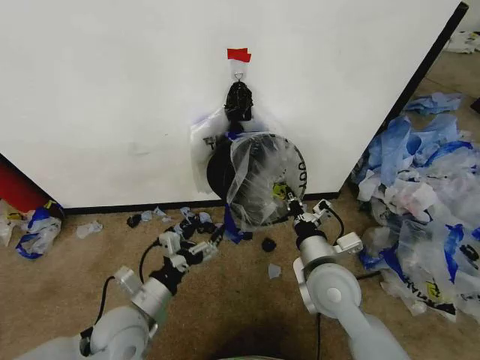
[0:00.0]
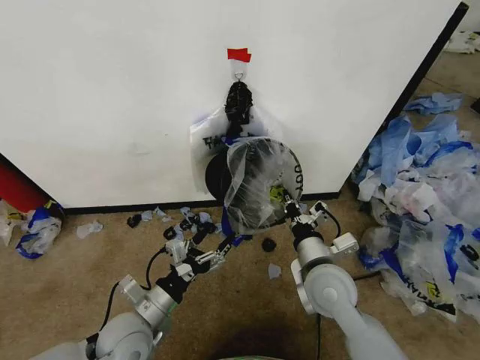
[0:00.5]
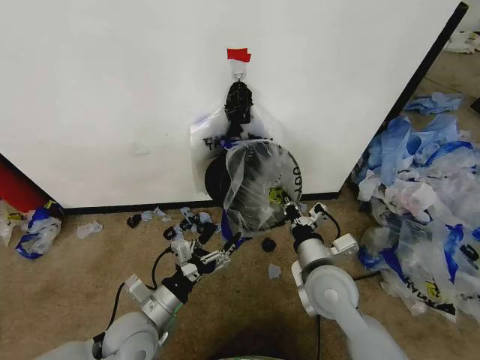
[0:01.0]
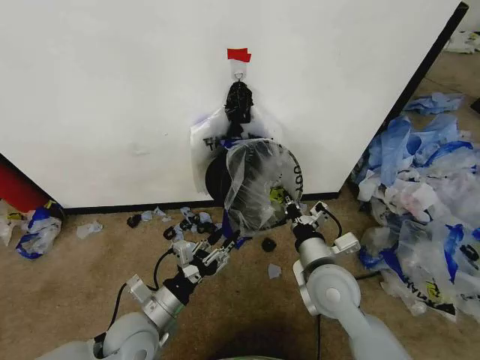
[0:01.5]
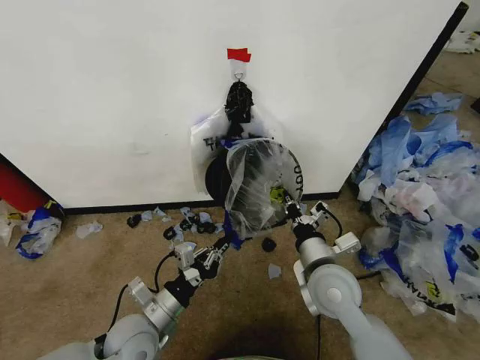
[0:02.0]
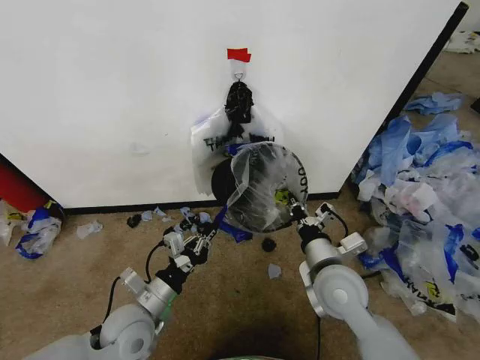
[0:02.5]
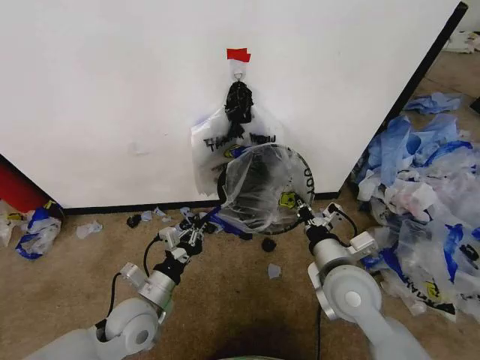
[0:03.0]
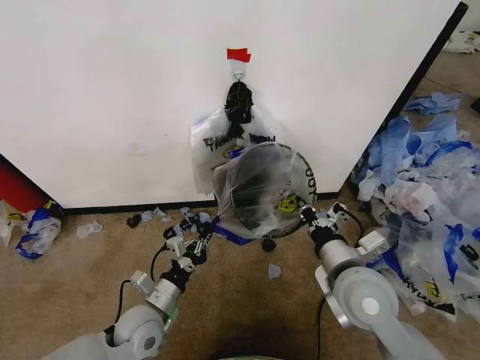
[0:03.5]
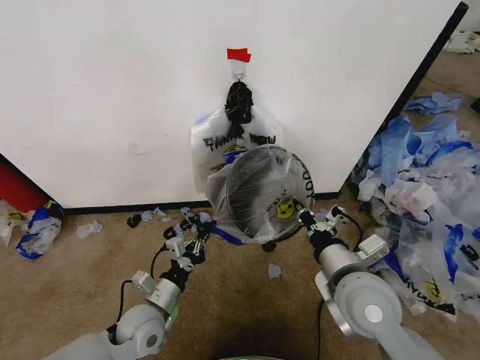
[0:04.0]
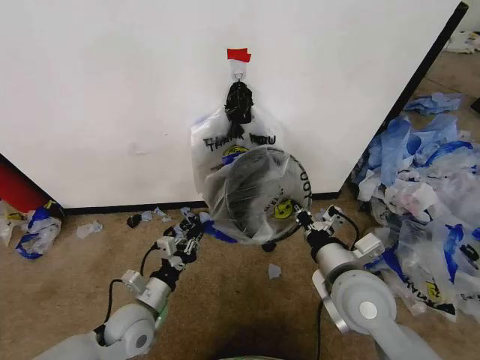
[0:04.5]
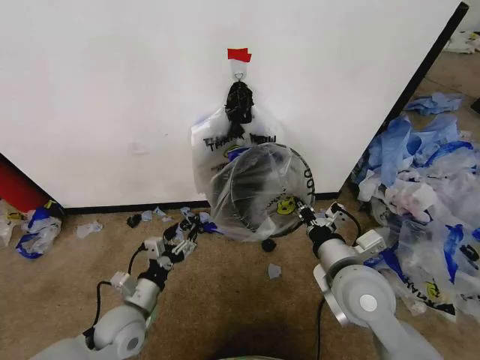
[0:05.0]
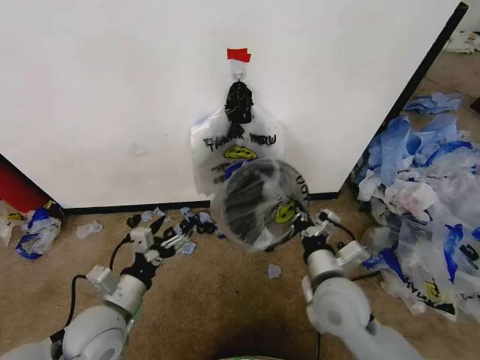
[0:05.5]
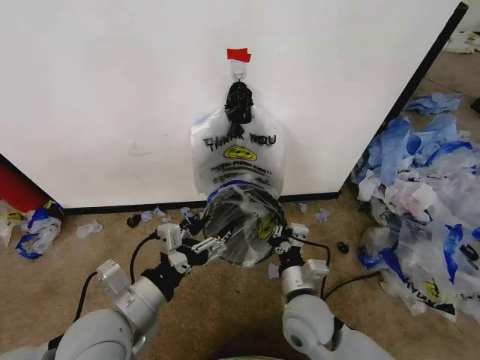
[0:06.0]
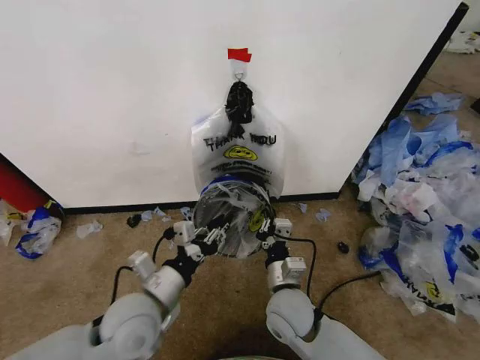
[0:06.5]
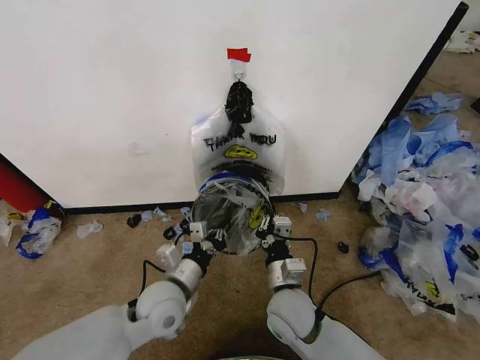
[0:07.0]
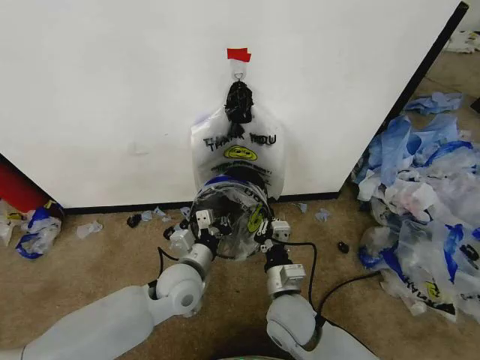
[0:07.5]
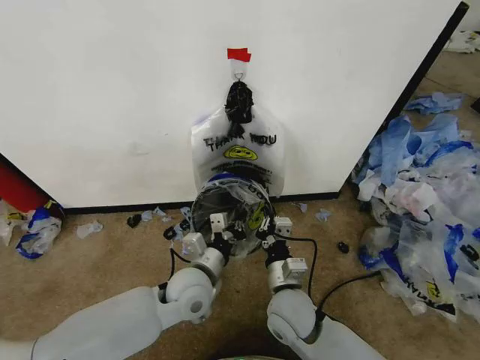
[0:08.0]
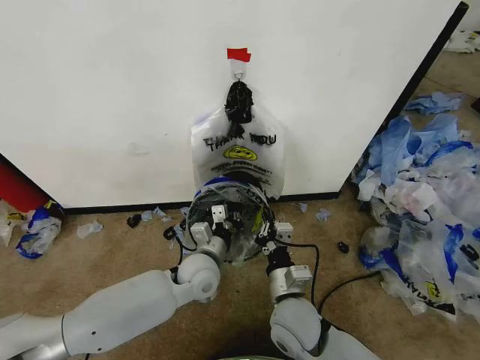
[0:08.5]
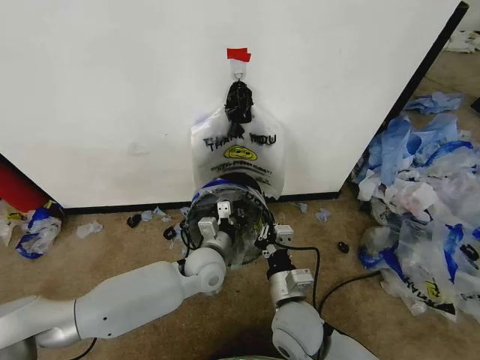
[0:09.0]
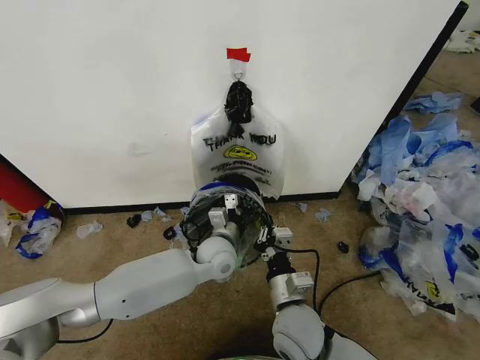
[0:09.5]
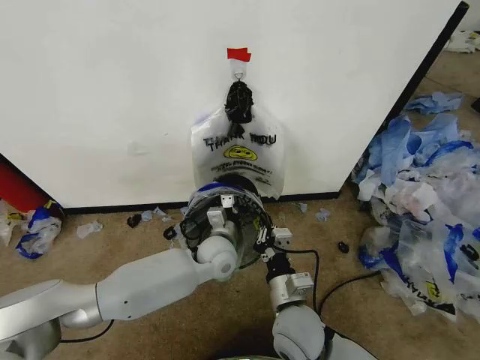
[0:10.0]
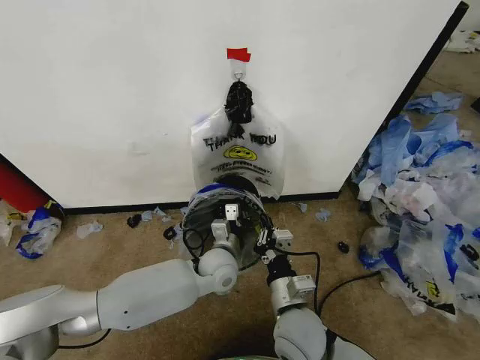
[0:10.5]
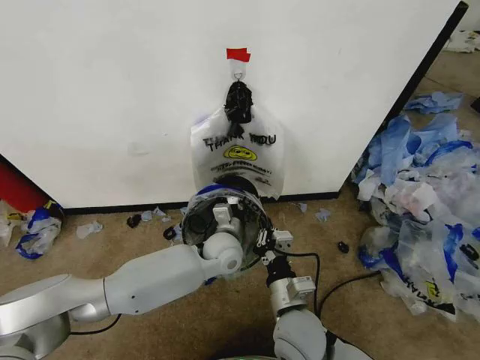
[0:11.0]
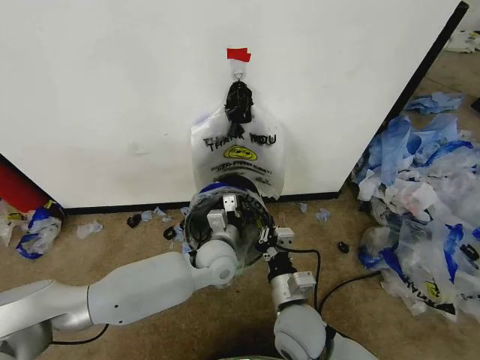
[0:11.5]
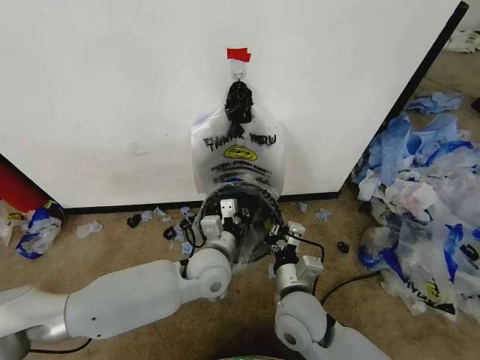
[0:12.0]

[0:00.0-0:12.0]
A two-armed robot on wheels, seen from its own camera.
Task of the whole recording: Pick up the garbage bag from the wall and place it over the trash bin.
0:00.0 to 0:02.0: The left gripper closes up.
0:02.0 to 0:04.0: The left gripper ends up roughly 5 cm from where it was. The right gripper ends up some 5 cm from where it was.
0:04.0 to 0:06.0: The left gripper is displaced upward and backward by roughly 20 cm, and opens up. Meanwhile the right gripper travels downward and to the left by some 15 cm.
0:06.0 to 0:08.0: The left gripper is displaced forward, to the right and downward by approximately 20 cm, and closes up.
0:08.0 to 0:10.0: The left gripper travels forward by some 10 cm.
0:10.0 to 0:12.0: The left gripper goes about 5 cm backward.

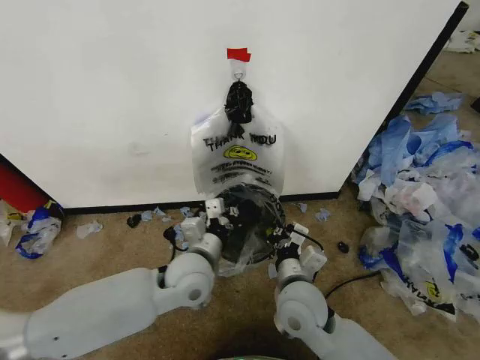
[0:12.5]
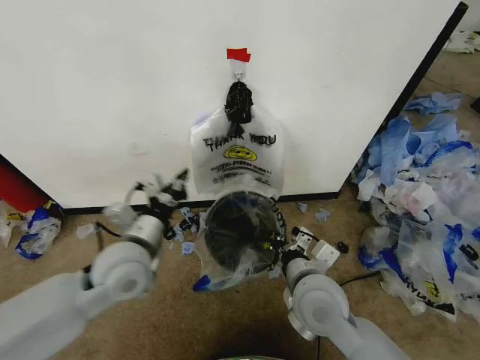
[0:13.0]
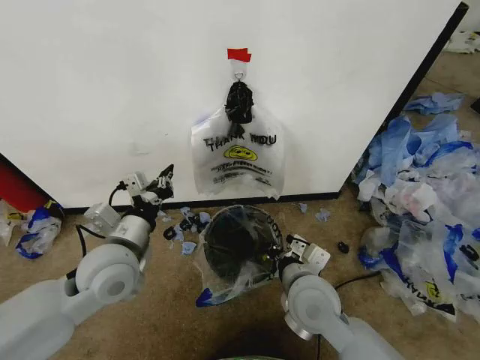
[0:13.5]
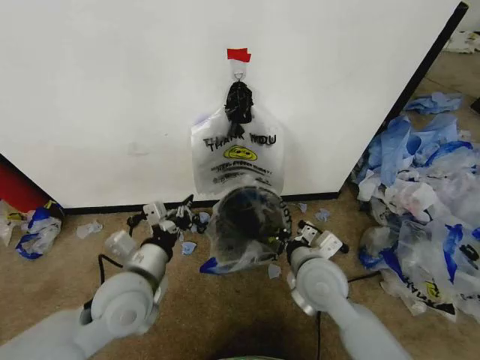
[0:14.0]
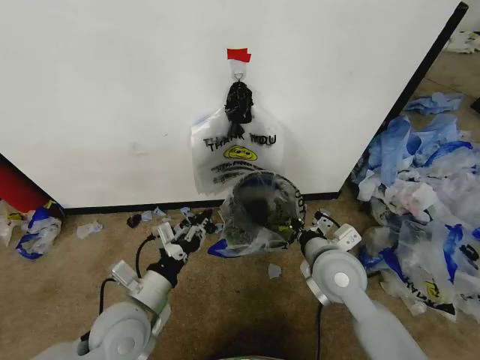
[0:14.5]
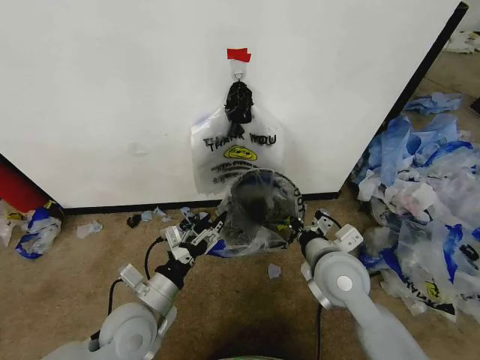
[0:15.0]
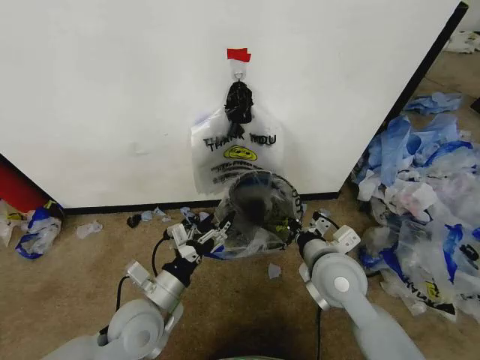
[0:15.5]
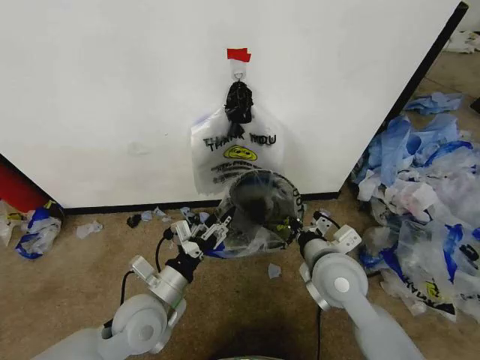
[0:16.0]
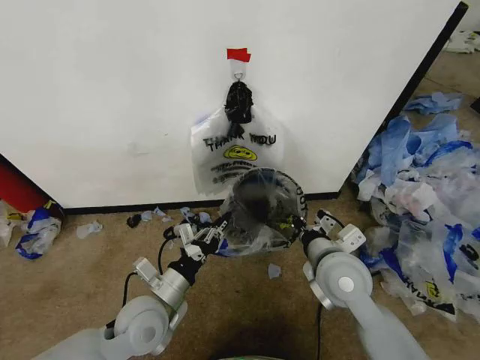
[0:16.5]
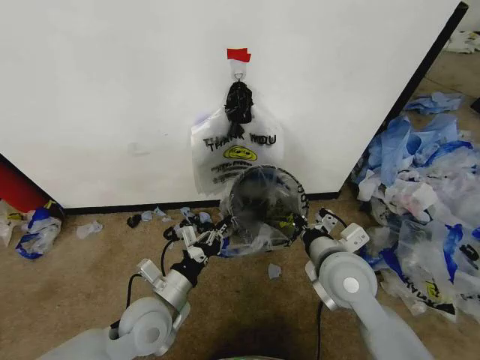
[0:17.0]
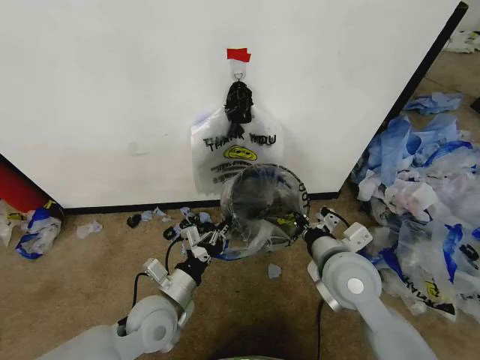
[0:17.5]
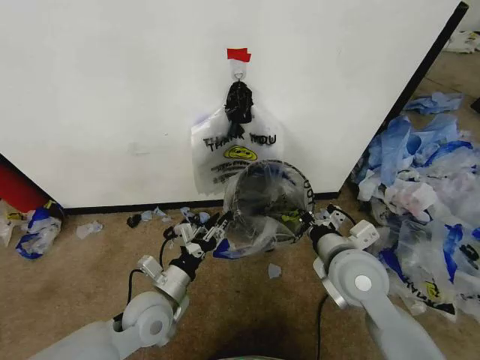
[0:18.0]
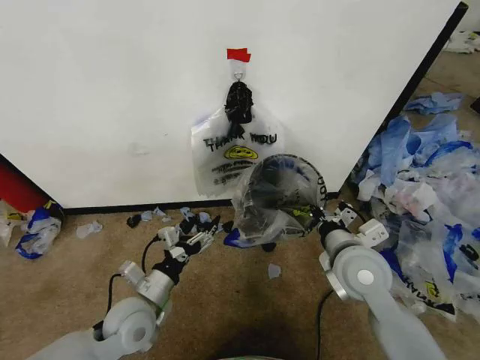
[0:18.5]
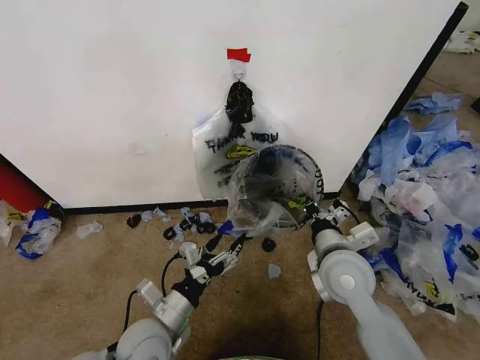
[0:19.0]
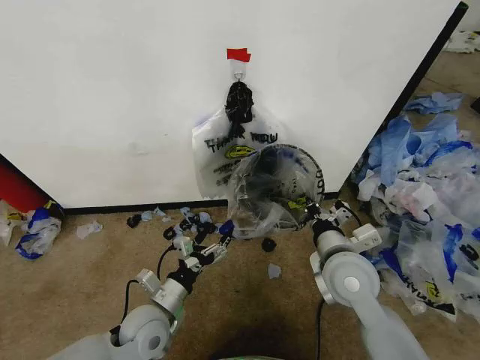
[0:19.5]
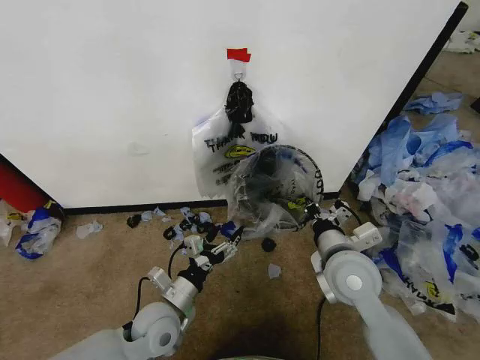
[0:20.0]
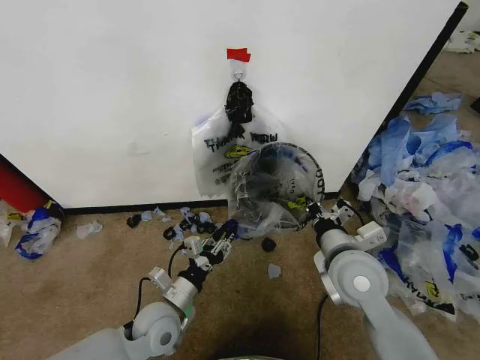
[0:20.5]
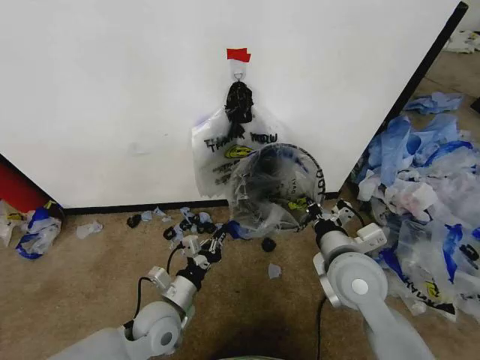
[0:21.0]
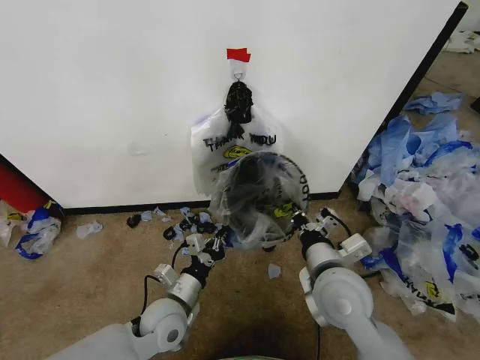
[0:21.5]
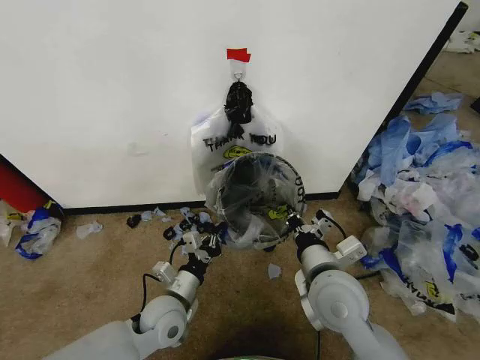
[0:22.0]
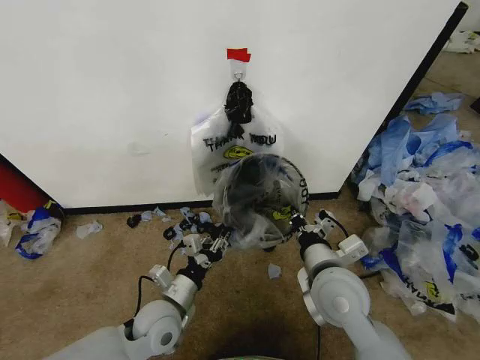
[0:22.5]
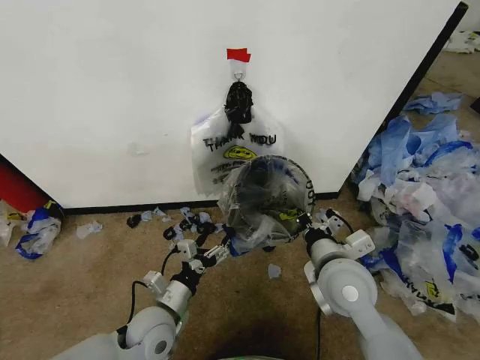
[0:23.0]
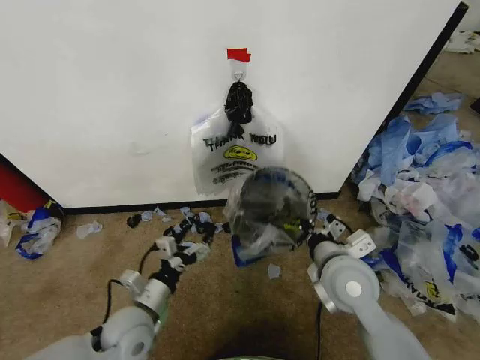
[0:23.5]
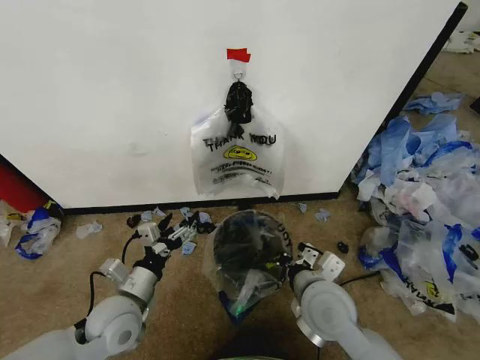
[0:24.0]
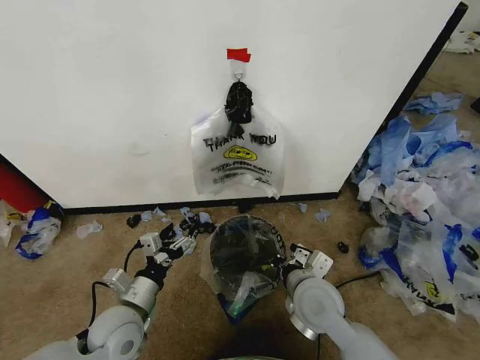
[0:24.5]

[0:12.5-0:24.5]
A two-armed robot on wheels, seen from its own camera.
Task of the whole recording: Pick up the garbage bag from the wall and place it over the trash bin.
0:12.5 to 0:14.5: The right gripper travels to the right and upward by approximately 10 cm; the left gripper shifts roughly 15 cm to the left and backward.
0:14.5 to 0:16.5: The left gripper opens, then closes once more.
0:16.5 to 0:18.5: The left gripper opens up.
0:18.5 to 0:20.5: The left gripper moves approximately 5 cm, and closes its fingers.
0:20.5 to 0:22.5: The left gripper closes, then opens again.
0:22.5 to 0:24.5: The left gripper heads to the left, covering approximately 5 cm, and opens; the right gripper shifts some 5 cm downward.

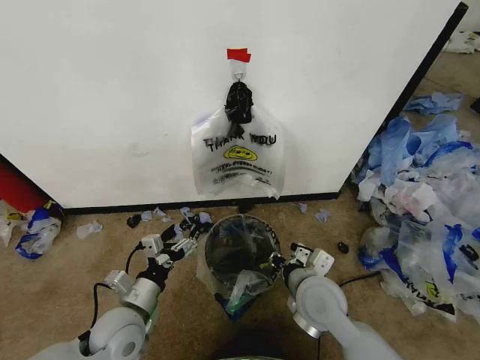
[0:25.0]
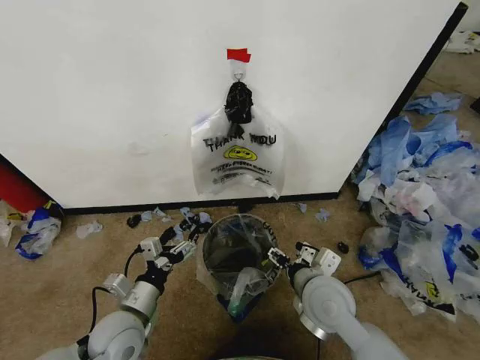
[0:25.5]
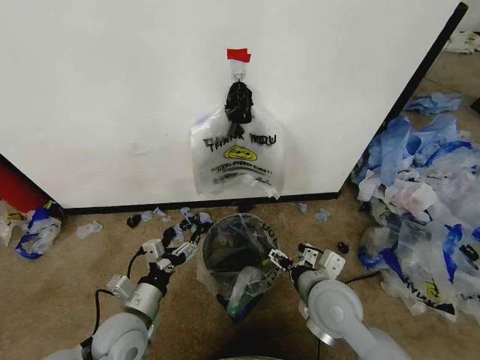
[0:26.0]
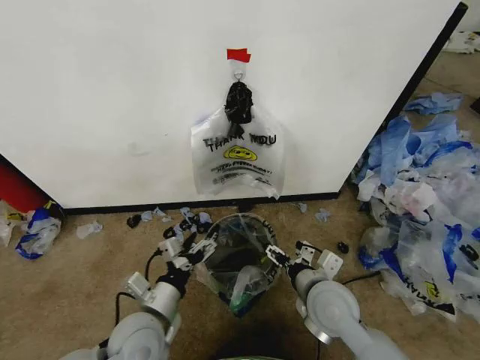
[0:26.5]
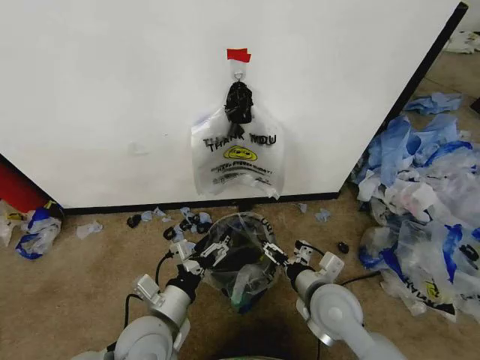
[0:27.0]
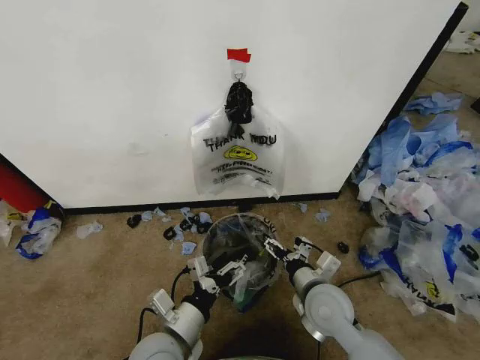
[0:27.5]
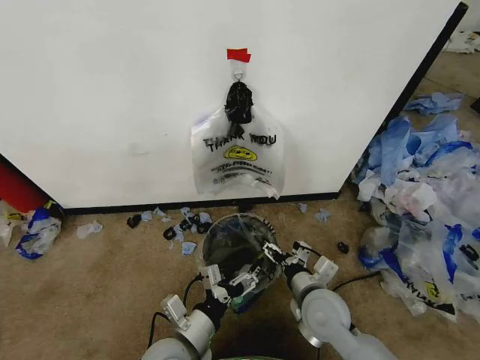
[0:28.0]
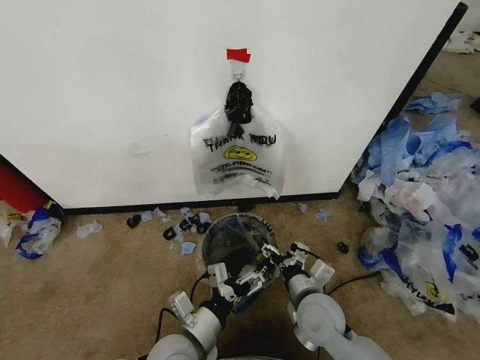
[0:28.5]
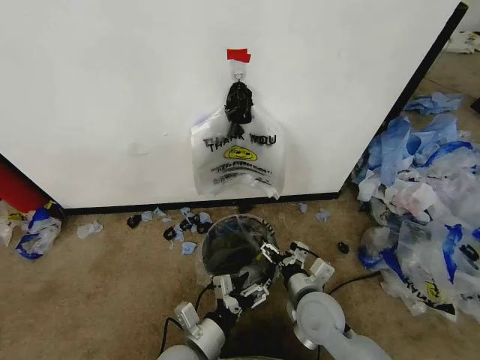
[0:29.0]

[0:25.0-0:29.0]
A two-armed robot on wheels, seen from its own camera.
Task of the whole recording: Pick up the garbage bag from the wall and place it over the trash bin.
0:25.0 to 0:27.0: The right gripper opens; the left gripper is displaced to the right by approximately 5 cm.
0:27.0 to 0:29.0: The left gripper heads to the right and downward, covering about 10 cm.
